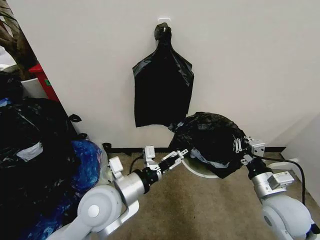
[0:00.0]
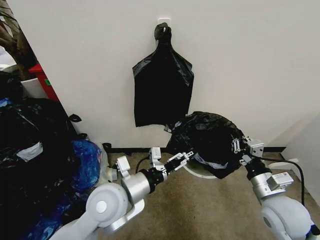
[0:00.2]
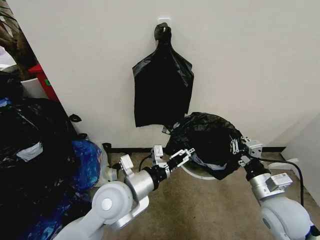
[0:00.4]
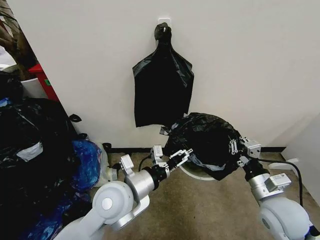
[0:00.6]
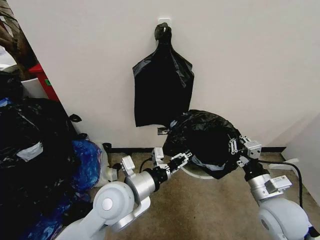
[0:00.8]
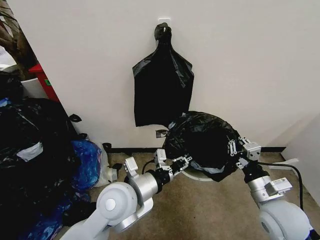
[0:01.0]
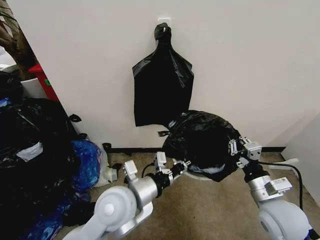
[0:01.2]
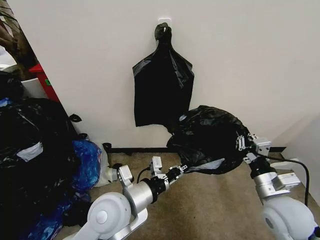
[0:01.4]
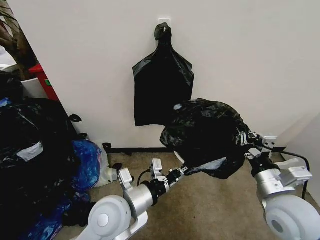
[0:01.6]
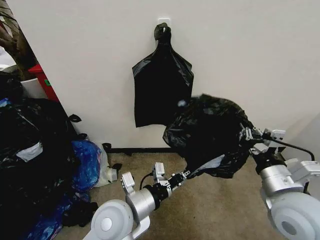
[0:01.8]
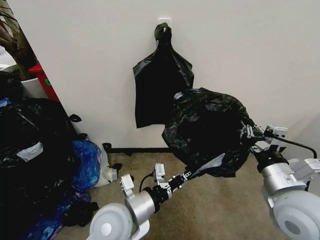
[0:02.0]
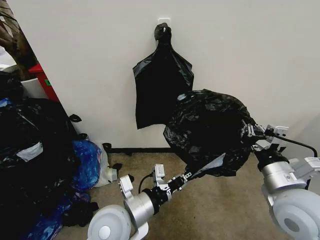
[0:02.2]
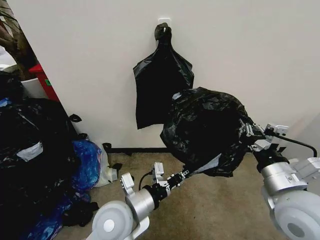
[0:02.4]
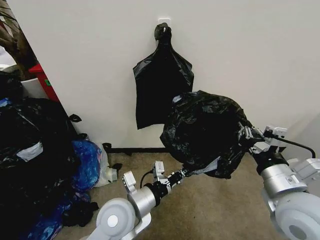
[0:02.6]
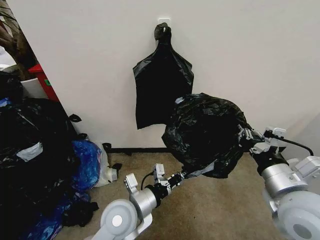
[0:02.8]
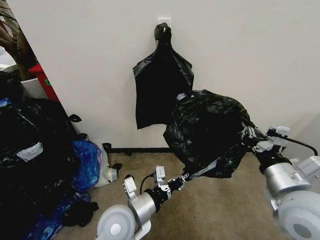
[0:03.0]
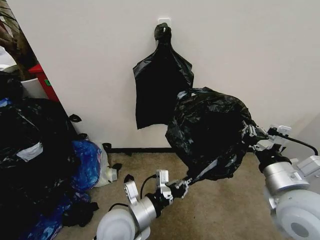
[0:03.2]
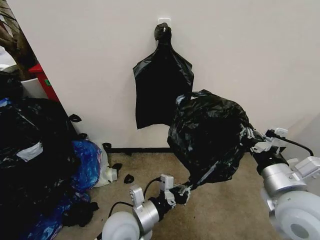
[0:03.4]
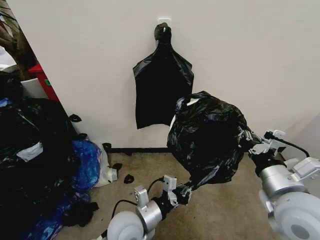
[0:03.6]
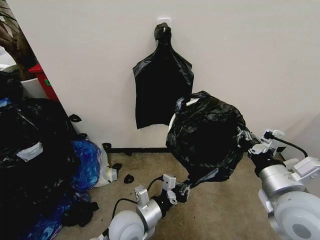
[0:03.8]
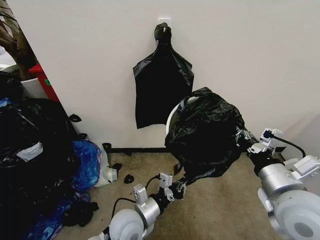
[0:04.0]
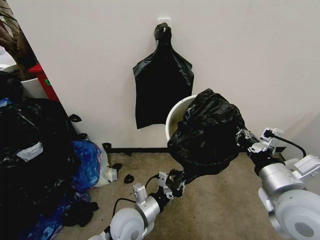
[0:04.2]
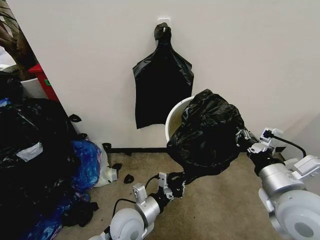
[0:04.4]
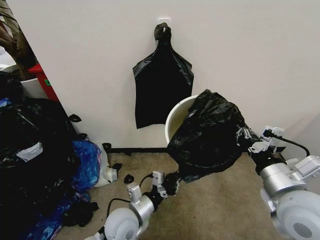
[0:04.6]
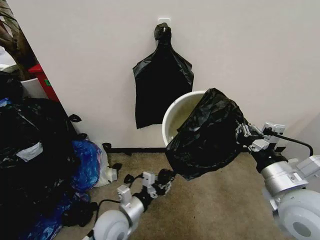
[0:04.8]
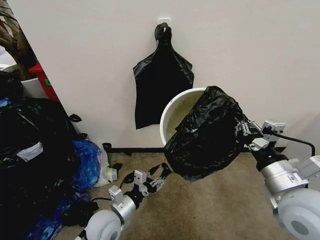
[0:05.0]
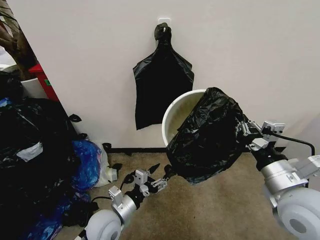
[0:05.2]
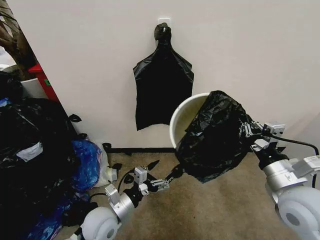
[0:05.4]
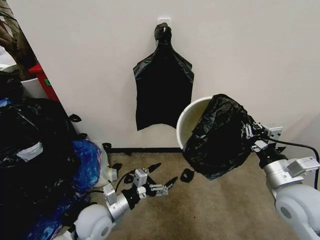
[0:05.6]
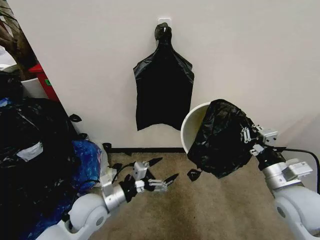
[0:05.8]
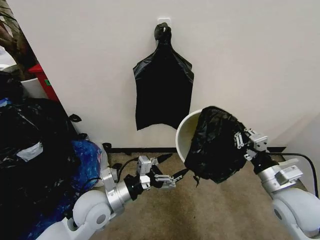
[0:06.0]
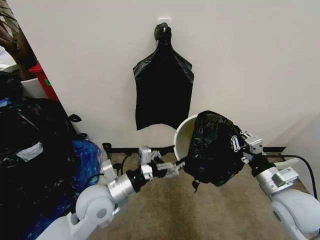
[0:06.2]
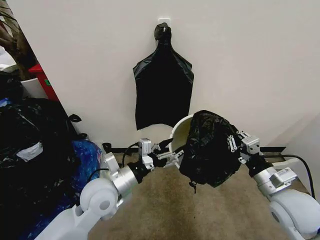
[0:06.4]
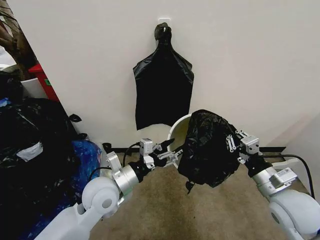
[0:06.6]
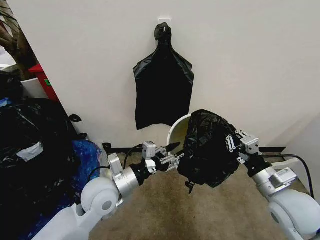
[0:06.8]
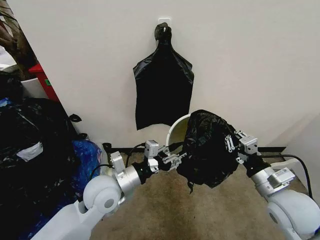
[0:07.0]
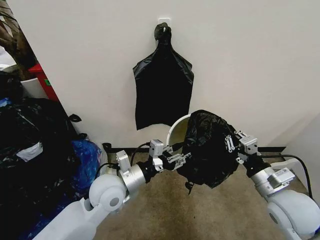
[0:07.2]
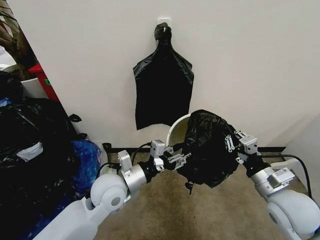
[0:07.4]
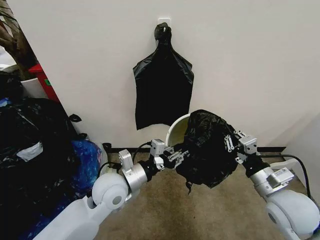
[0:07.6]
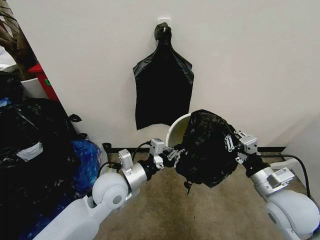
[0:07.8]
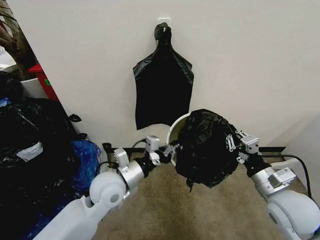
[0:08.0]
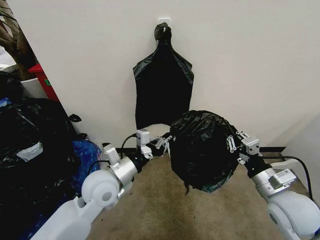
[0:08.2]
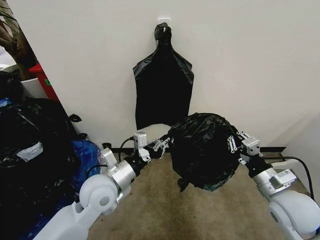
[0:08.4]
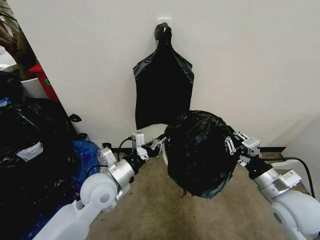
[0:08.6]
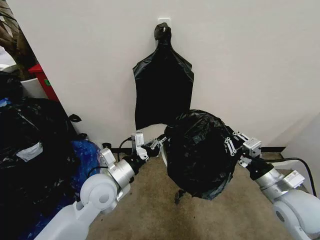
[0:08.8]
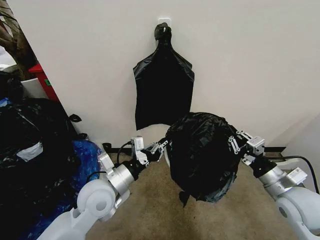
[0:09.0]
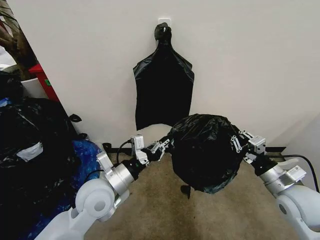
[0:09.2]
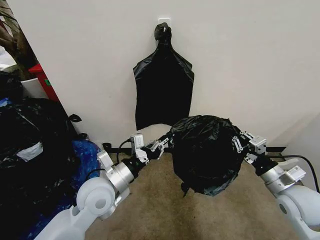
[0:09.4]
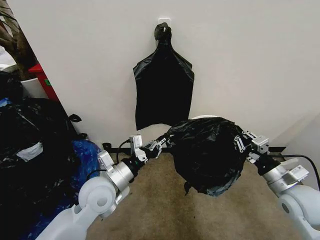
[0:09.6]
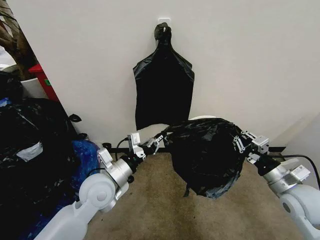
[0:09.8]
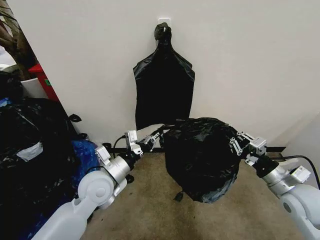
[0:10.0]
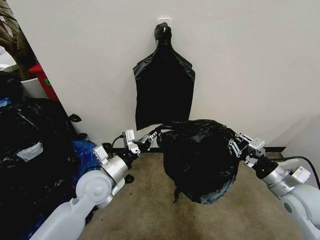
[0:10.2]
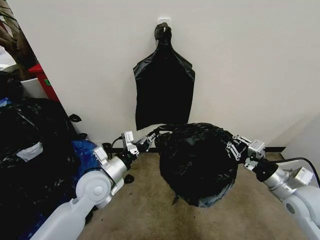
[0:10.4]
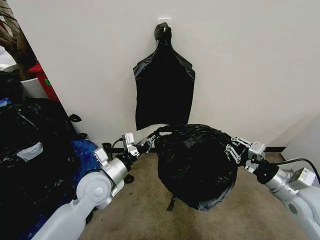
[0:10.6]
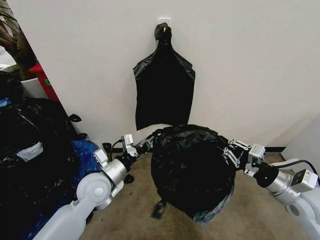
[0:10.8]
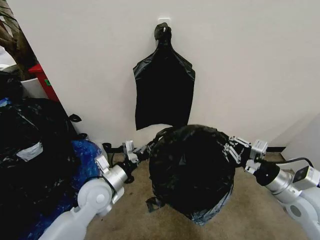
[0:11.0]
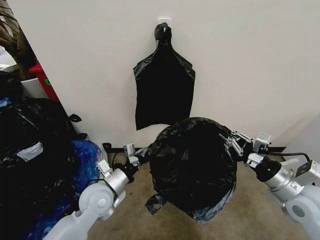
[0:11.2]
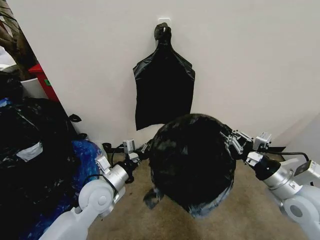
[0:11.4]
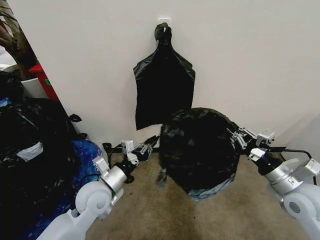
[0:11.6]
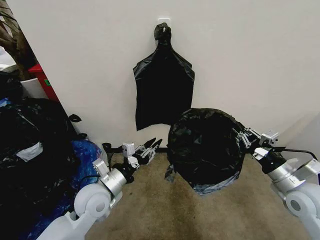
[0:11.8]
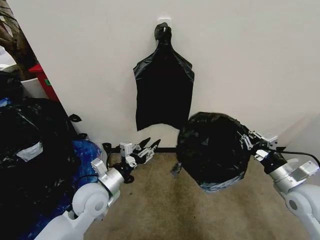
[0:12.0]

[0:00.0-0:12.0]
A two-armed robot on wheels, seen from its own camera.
Task of the whole recording: Place the garbage bag over the trash bin.
0:00.0 to 0:01.6: The right gripper is displaced upward by about 5 cm, while the left gripper closes.
0:01.6 to 0:03.0: The right gripper travels upward by roughly 5 cm.
0:03.0 to 0:04.4: The left gripper heads downward, covering about 5 cm.
0:04.4 to 0:06.0: The left gripper goes approximately 10 cm to the left and upward, and opens up, while the right gripper travels downward and to the right by about 10 cm.
0:06.0 to 0:07.6: The left gripper shifts by approximately 5 cm, and closes its fingers.
0:07.6 to 0:09.0: The grippers make only small movements.
0:09.0 to 0:10.4: The left gripper ends up approximately 5 cm from where it was.
0:10.4 to 0:12.0: The left gripper opens its fingers.

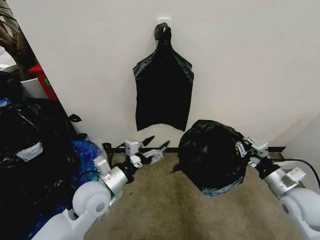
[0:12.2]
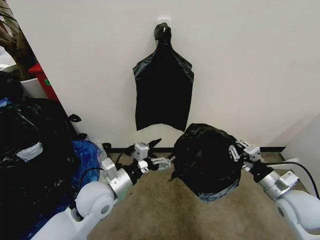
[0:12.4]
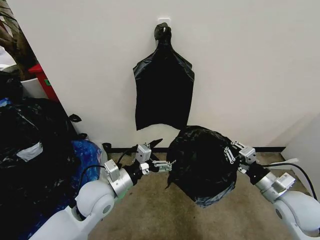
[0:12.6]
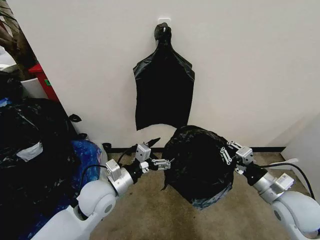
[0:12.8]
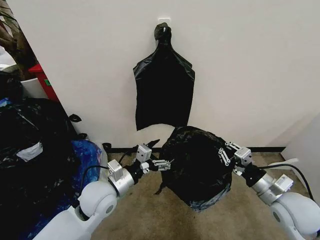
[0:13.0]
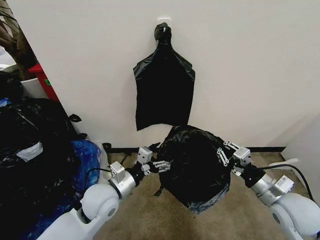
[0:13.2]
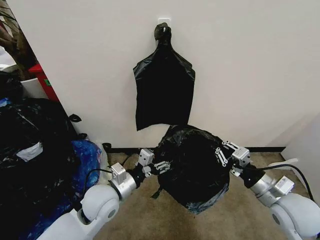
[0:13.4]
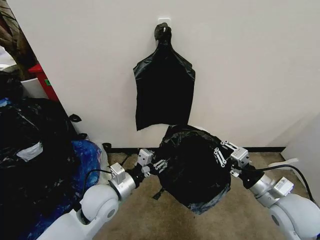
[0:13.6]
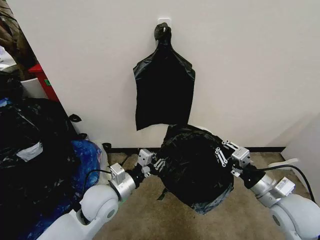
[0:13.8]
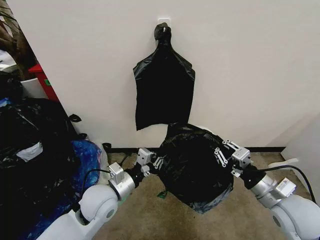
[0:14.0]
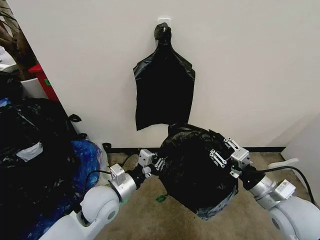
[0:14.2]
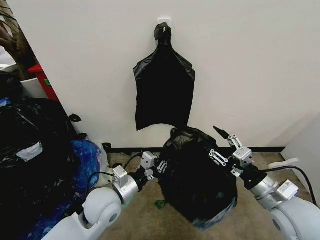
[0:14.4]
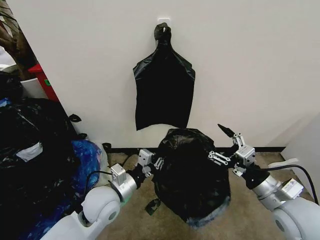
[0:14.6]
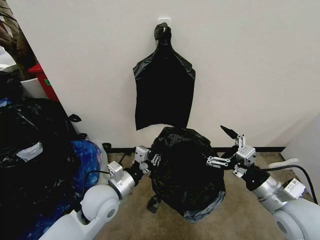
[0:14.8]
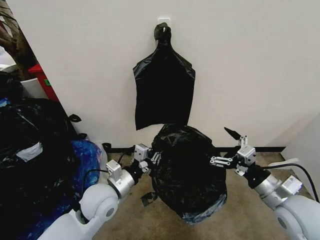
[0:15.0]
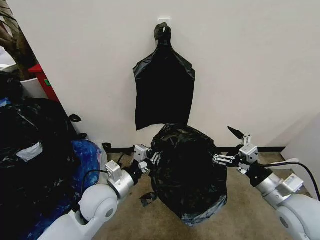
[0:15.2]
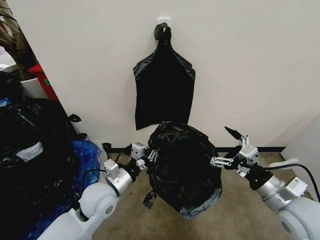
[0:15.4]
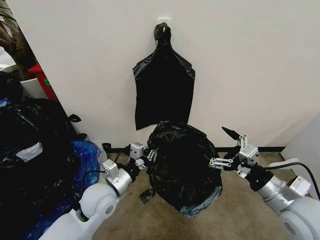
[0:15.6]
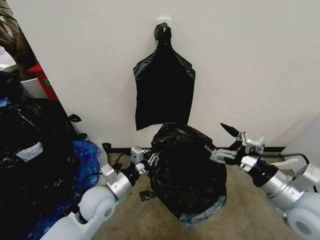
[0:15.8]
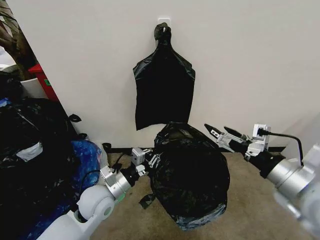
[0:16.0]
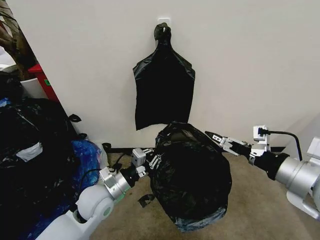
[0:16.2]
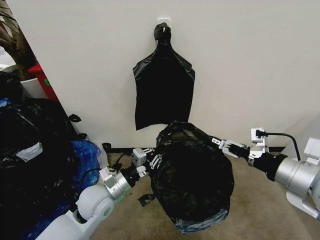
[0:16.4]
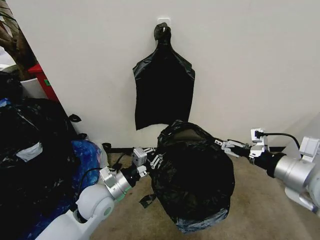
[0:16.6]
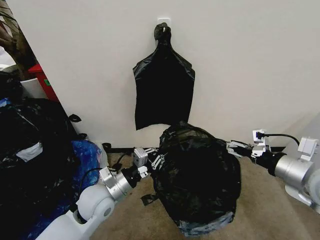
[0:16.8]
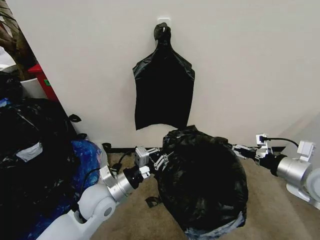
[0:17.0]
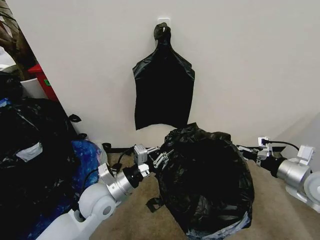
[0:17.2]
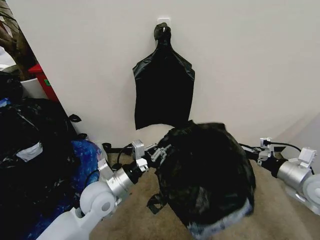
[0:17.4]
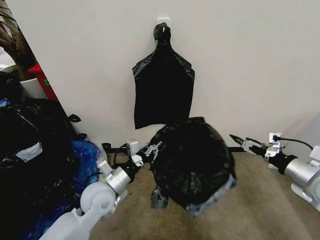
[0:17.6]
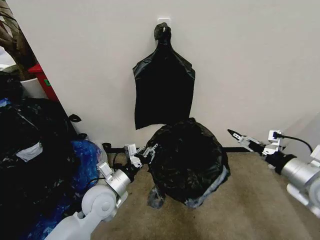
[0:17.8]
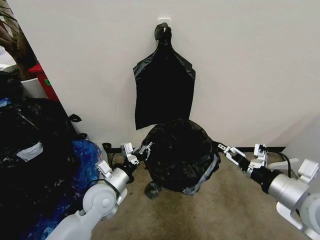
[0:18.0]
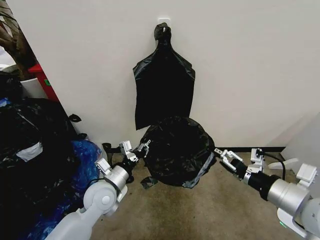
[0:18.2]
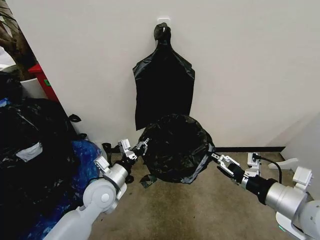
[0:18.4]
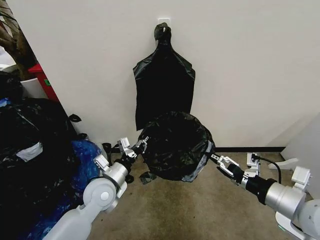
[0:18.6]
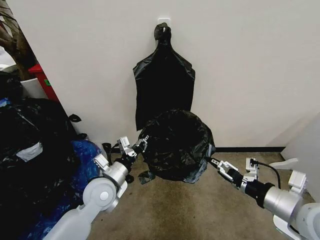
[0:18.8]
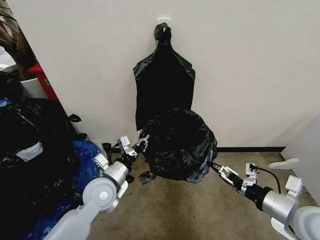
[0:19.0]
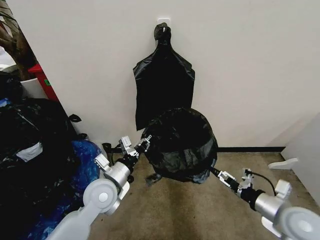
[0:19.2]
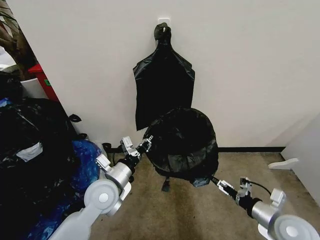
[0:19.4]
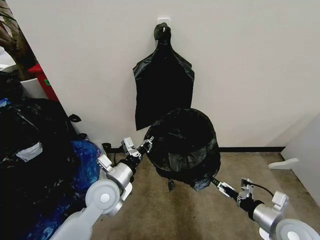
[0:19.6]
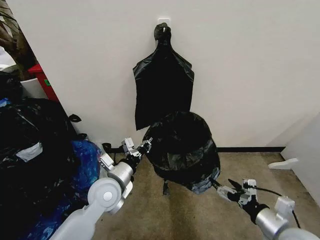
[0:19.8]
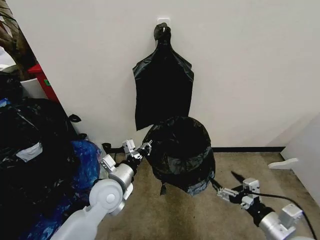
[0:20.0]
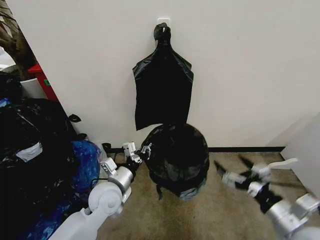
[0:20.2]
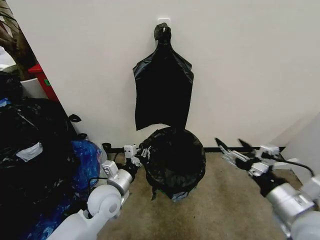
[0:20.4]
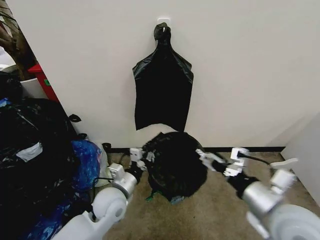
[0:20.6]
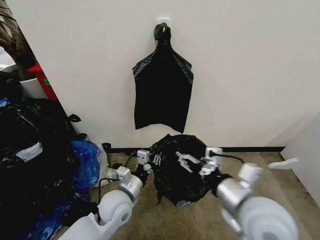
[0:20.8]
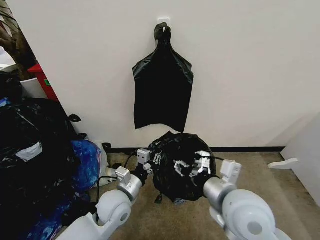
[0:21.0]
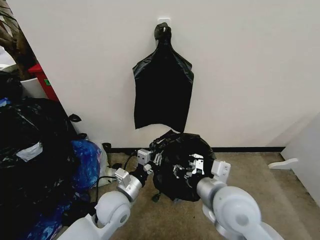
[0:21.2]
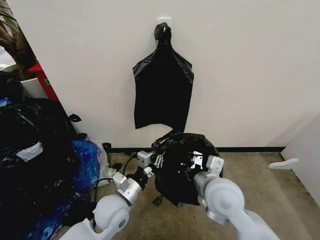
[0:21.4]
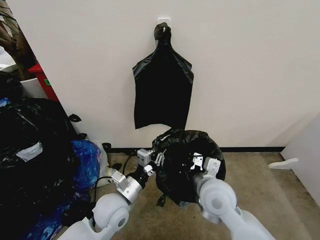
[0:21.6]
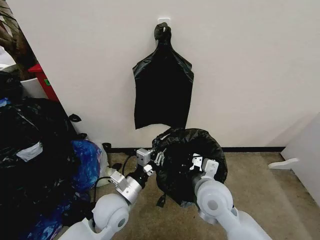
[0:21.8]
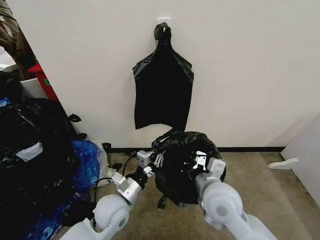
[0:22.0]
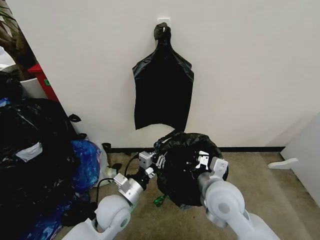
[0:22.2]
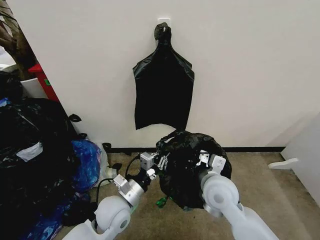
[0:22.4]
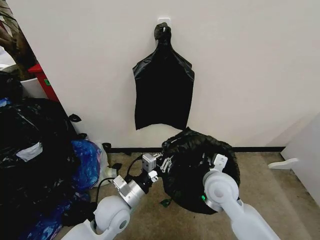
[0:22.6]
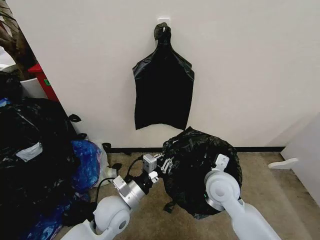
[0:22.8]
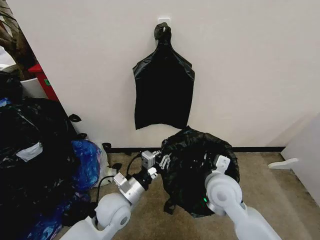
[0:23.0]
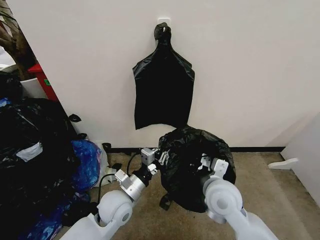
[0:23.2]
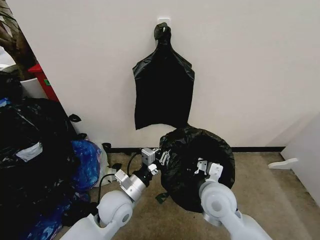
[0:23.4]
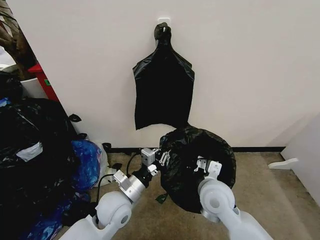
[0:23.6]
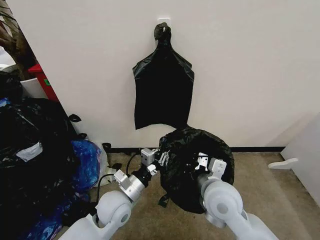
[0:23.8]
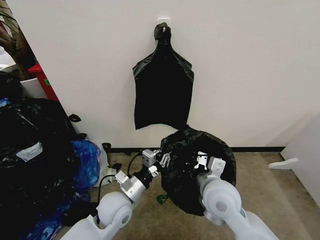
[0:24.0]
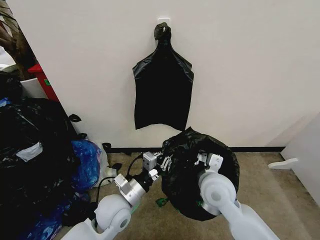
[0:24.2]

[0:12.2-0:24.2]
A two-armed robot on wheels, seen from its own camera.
Task of the whole recording: Place the garbage bag over the trash bin.
0:12.2 to 0:13.8: The right gripper goes about 5 cm to the left, while the left gripper closes its fingers.
0:13.8 to 0:15.2: The right gripper opens.
0:15.2 to 0:16.6: The right gripper goes some 10 cm upward.
0:16.6 to 0:18.2: The right gripper goes to the right and returns, about 10 cm each way.
0:18.2 to 0:19.8: The right gripper is displaced downward by about 15 cm.
0:19.8 to 0:21.2: The left gripper shifts by roughly 5 cm; the right gripper travels to the left and upward by about 20 cm, and closes its fingers.
0:21.2 to 0:22.6: The right gripper heads forward and downward, covering approximately 10 cm.
0:22.6 to 0:24.2: The grippers make only small movements.
